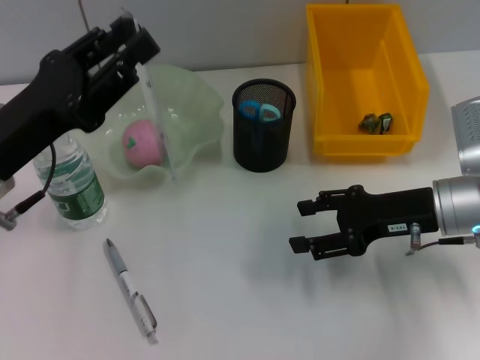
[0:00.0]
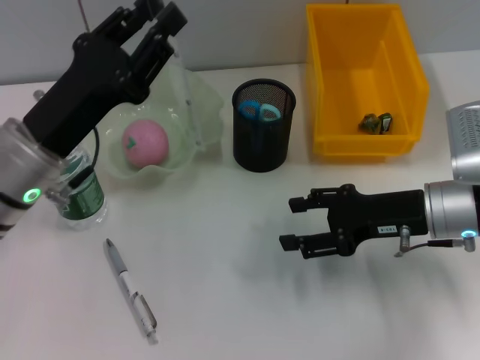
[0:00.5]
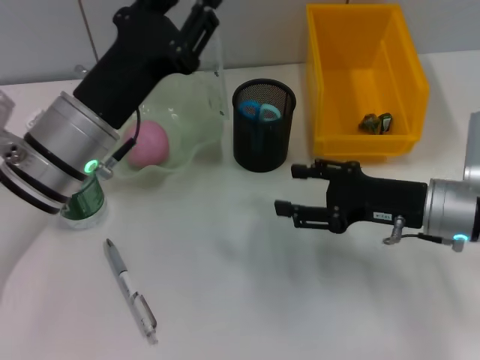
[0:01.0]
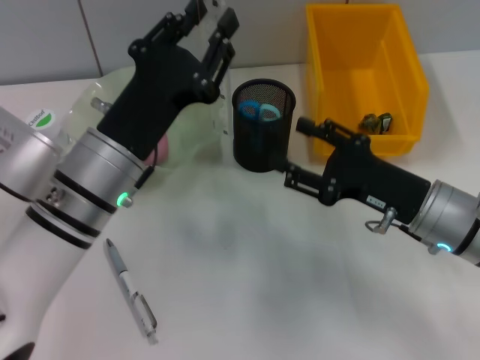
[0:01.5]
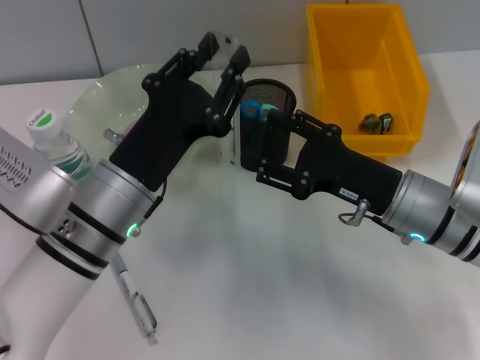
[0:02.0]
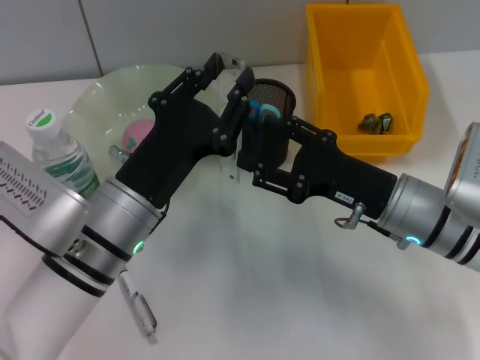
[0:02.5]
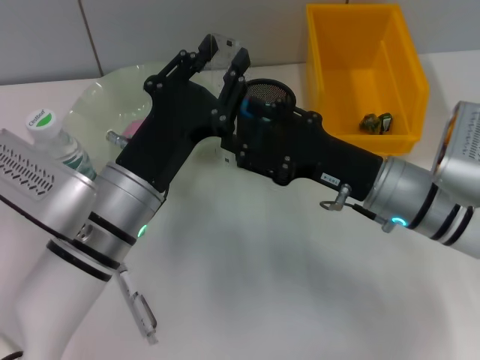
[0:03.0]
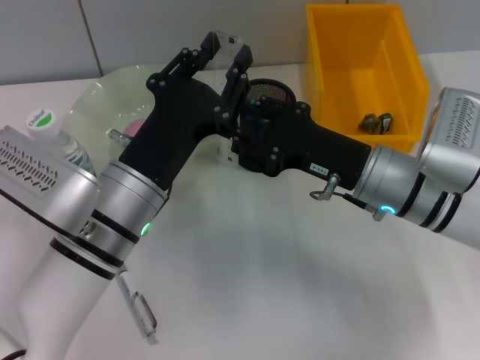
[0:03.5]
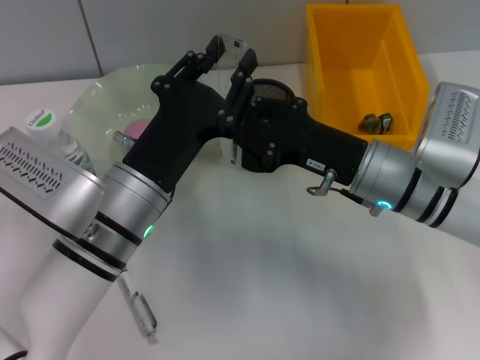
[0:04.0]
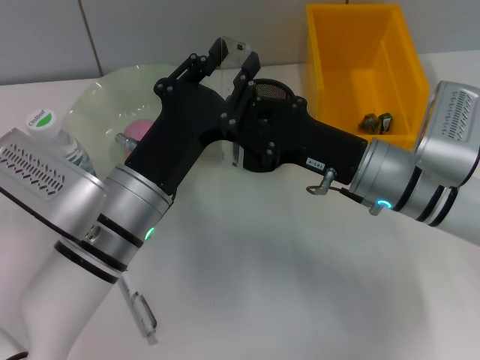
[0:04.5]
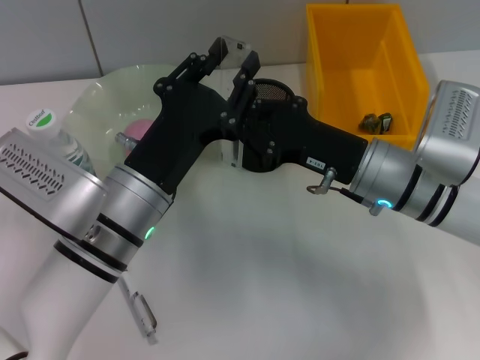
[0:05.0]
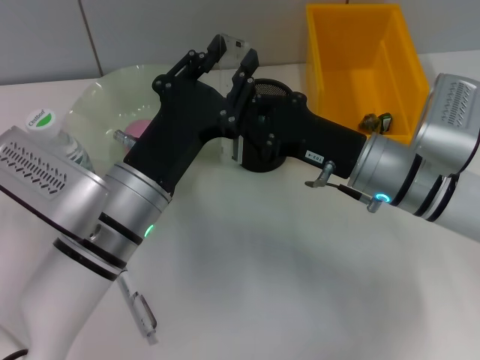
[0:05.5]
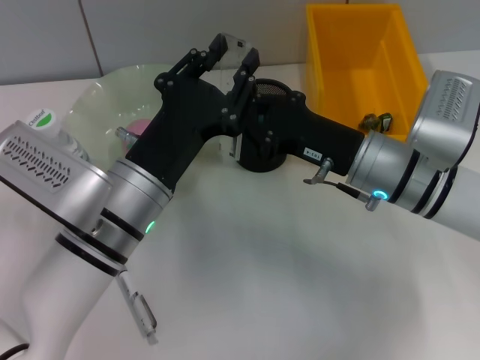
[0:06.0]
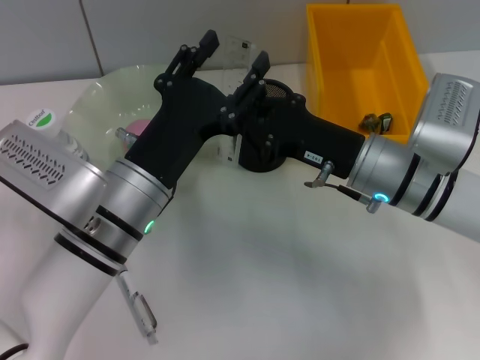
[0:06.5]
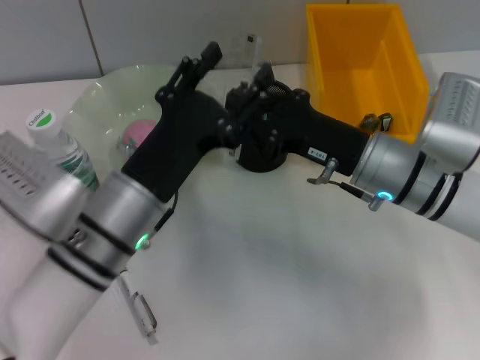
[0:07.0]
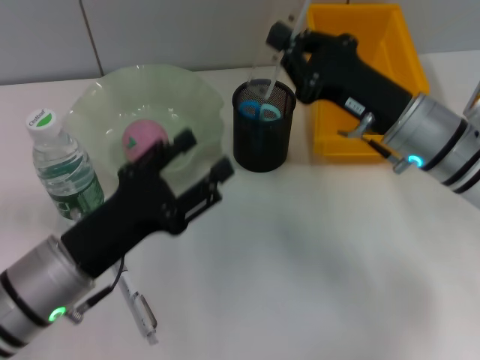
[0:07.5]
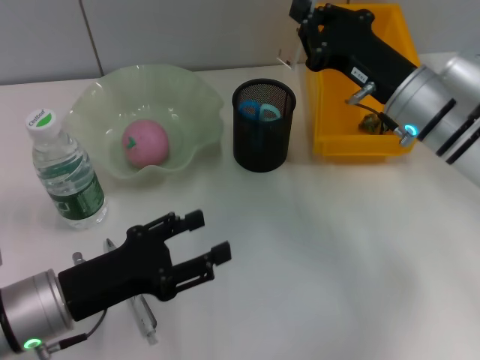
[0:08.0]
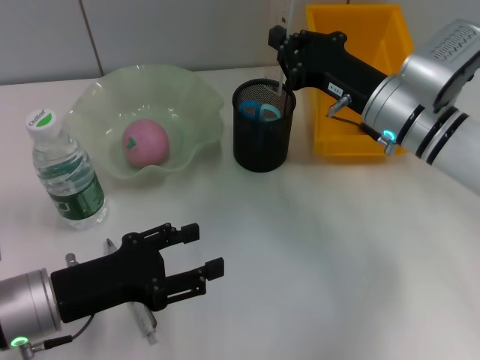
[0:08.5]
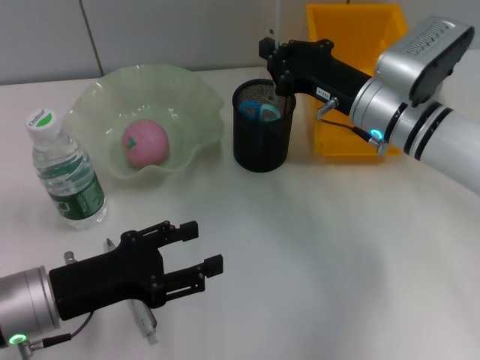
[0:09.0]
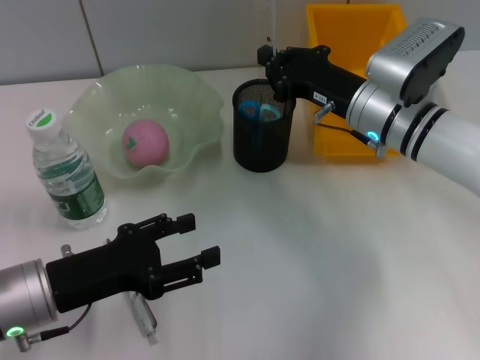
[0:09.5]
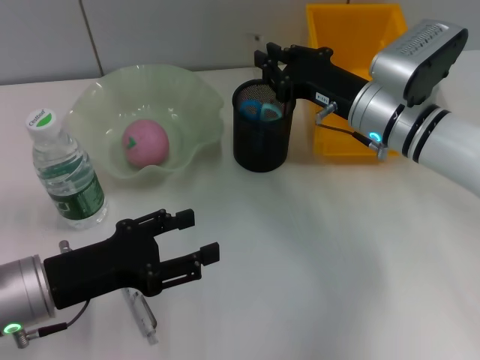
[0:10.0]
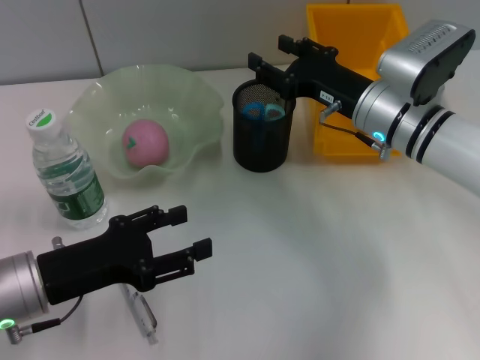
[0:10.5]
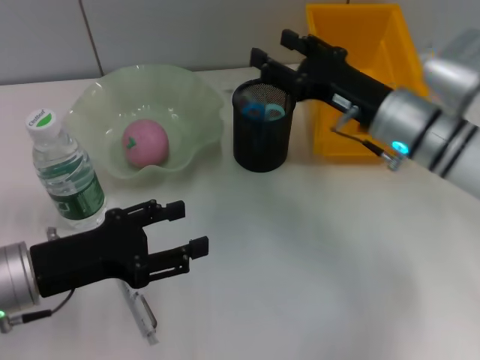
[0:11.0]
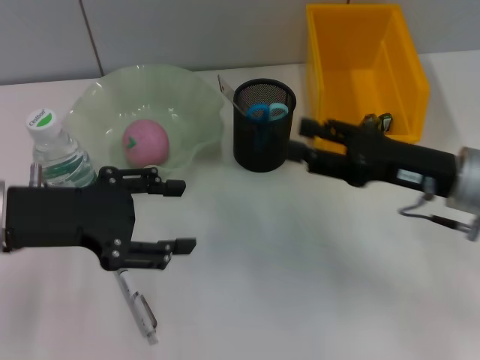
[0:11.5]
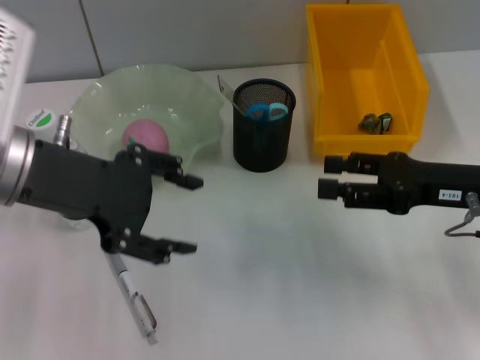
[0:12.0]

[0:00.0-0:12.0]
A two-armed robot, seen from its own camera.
Step, 0:00.0 to 0:06.0: Pass the ruler from the left hand to the right hand.
Step, 0:06.5 to 0:10.0: Place the ruler into the pen holder with the right hand.
0:00.0 to 0:02.0: The left gripper goes approximately 10 cm to the right. Meanwhile the right gripper is displaced to the left by roughly 5 cm.
0:02.0 to 0:04.0: The right gripper closes its fingers.
0:04.0 to 0:06.0: The two grippers keep their place.
0:06.0 to 0:08.0: The left gripper heads to the left, covering roughly 10 cm, and opens, while the right gripper shifts by about 5 cm.
0:08.0 to 0:10.0: There are only small adjustments of the grippers.
0:10.0 to 0:12.0: The right gripper shifts approximately 15 cm to the right and backward, and opens its fingers. The left gripper travels upward and forward by approximately 15 cm.

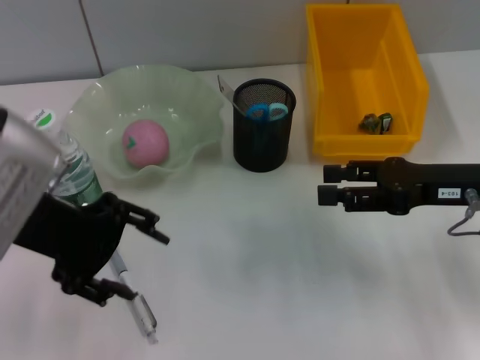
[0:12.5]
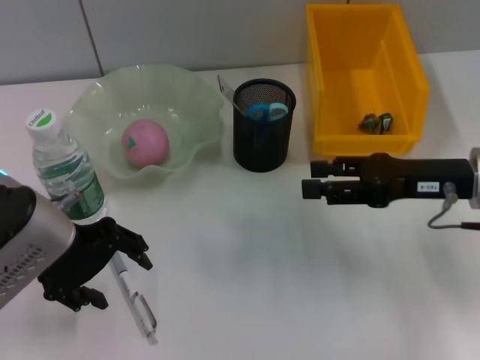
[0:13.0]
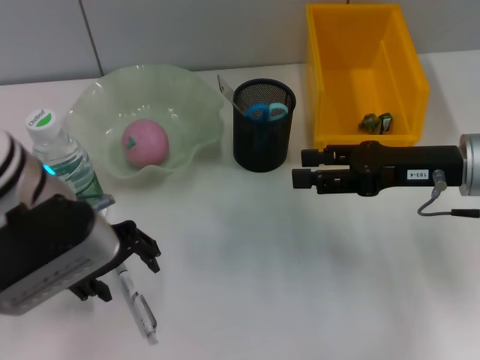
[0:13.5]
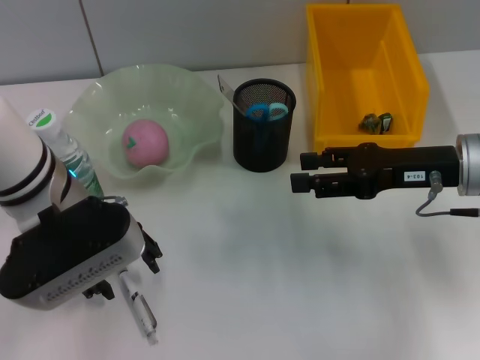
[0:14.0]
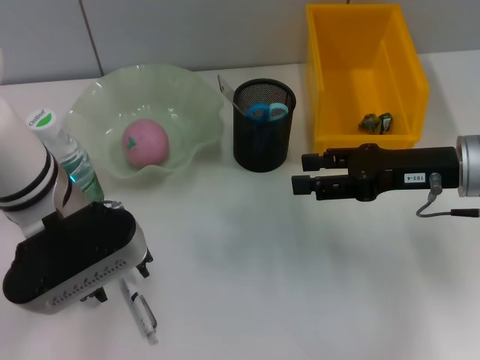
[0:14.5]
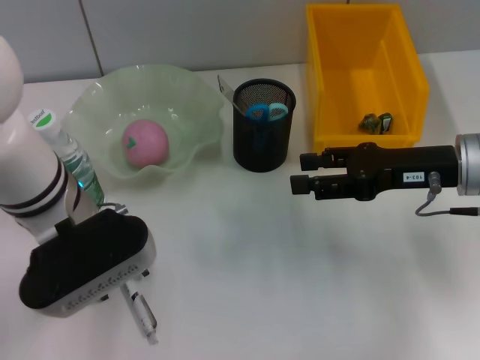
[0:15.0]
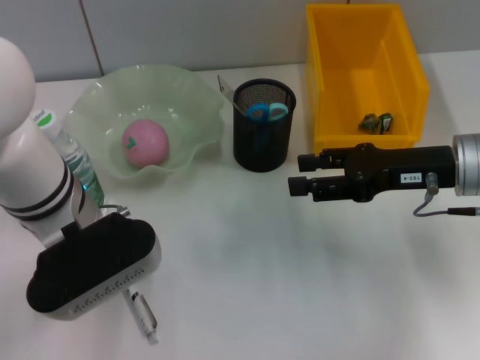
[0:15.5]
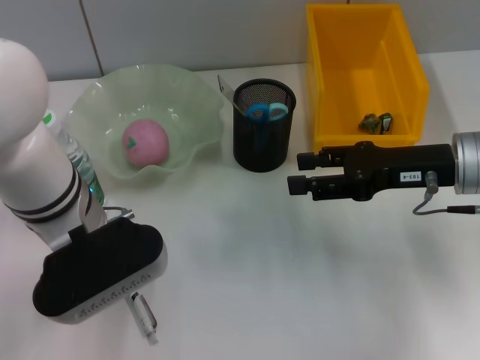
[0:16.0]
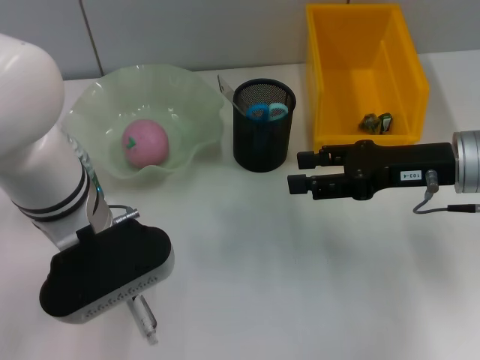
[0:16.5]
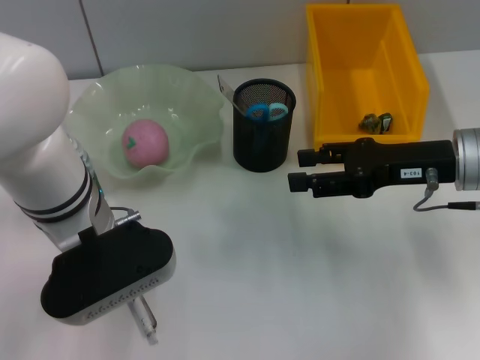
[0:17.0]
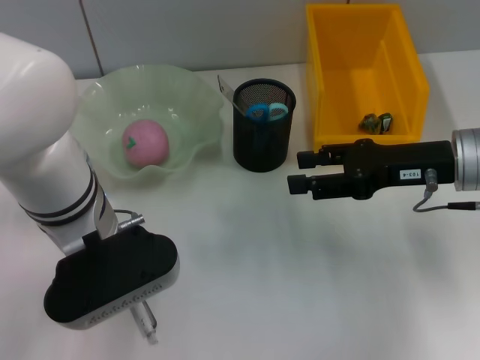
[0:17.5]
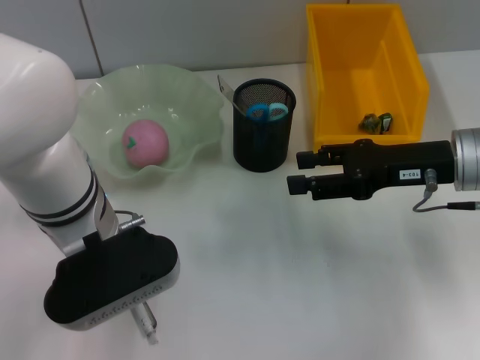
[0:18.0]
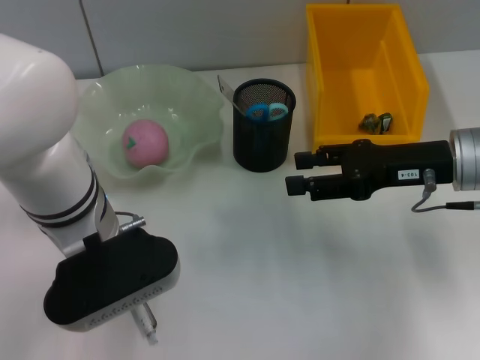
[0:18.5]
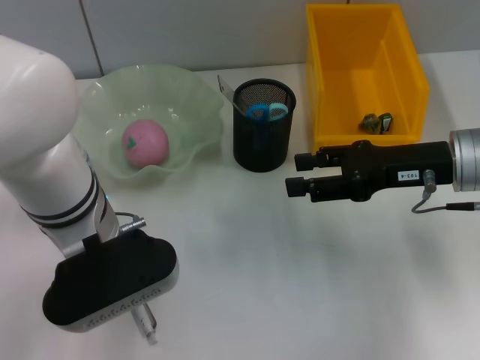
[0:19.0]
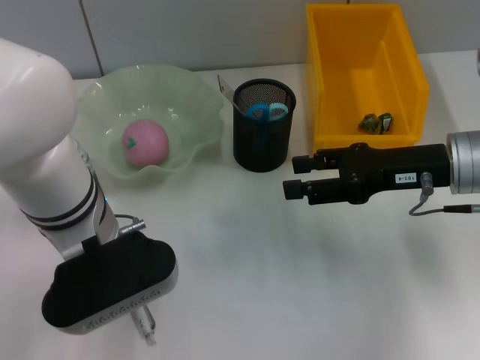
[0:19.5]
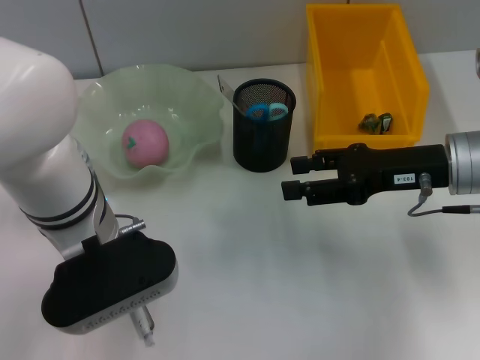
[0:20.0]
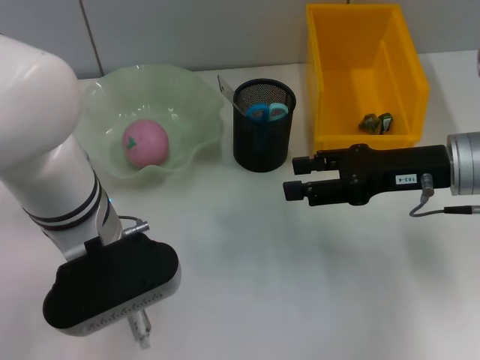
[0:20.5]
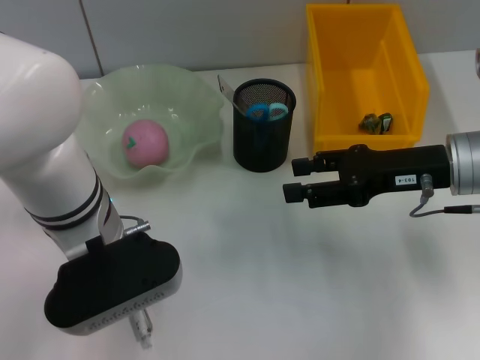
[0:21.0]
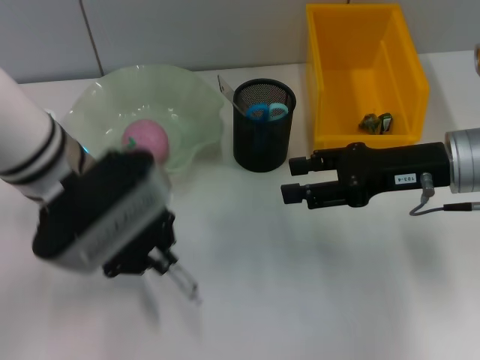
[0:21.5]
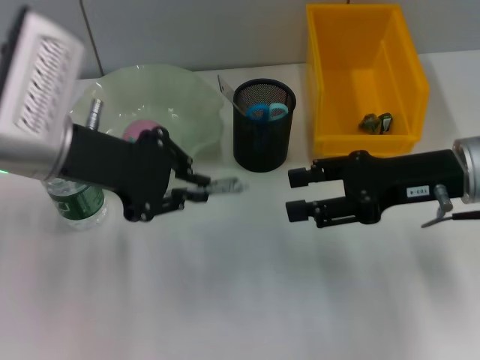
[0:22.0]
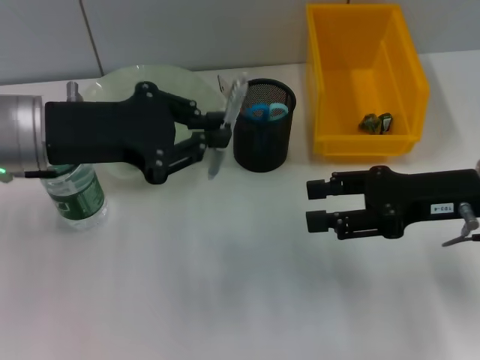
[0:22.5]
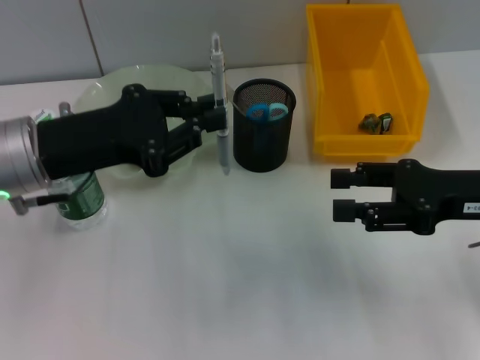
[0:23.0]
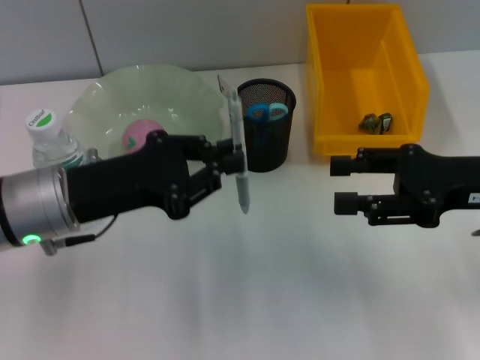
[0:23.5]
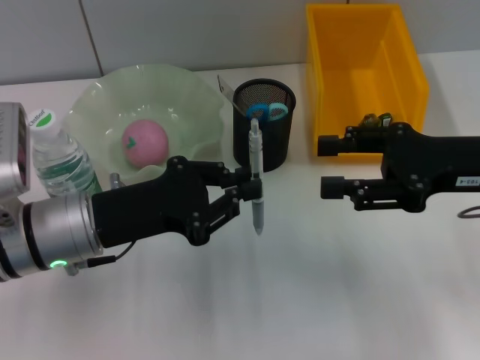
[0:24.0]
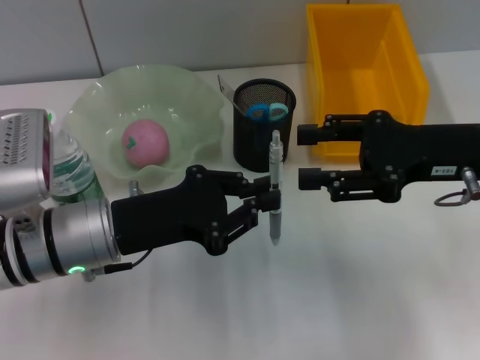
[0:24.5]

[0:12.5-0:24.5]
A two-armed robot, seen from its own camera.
Step, 0:12.5 to 0:19.5: Grab the gray spring-action pen with the left hand.
0:12.5 to 0:14.5: The left gripper travels downward by about 5 cm.
0:14.5 to 0:16.5: The grippers make only small movements.
0:16.5 to 0:20.5: Both grippers stay about where they are.
0:20.5 to 0:22.5: The left gripper travels to the left by approximately 10 cm.
0:22.5 to 0:24.5: The left gripper travels downward by approximately 10 cm.

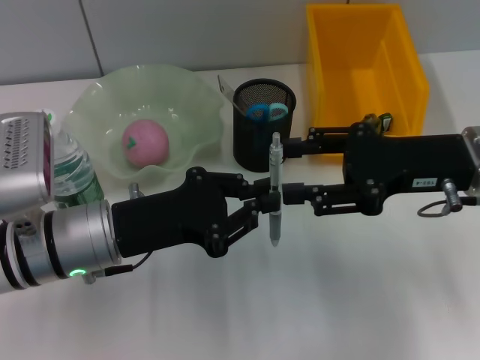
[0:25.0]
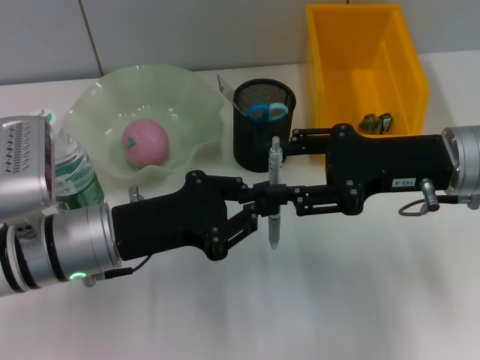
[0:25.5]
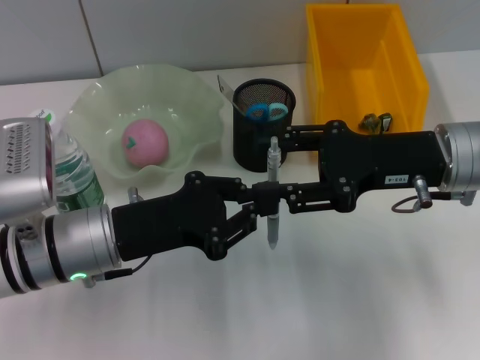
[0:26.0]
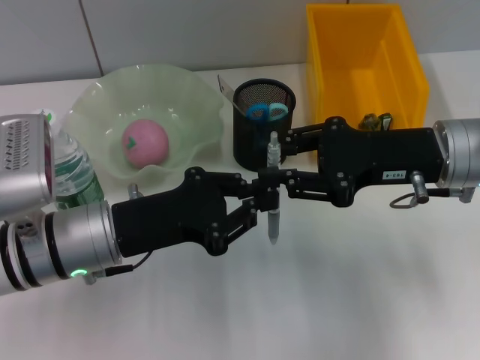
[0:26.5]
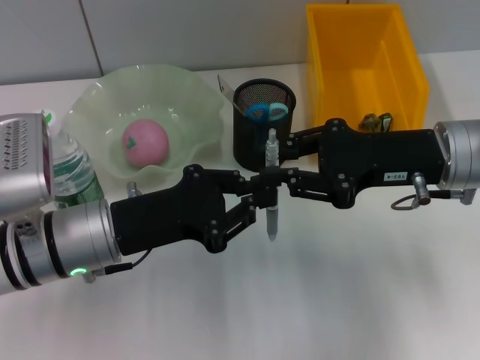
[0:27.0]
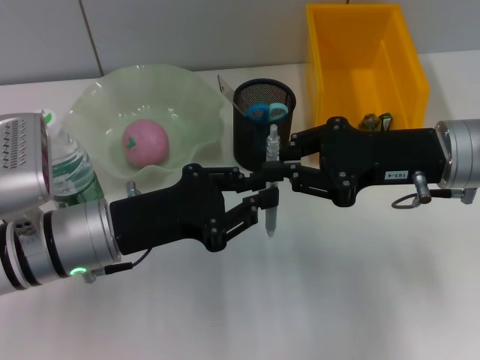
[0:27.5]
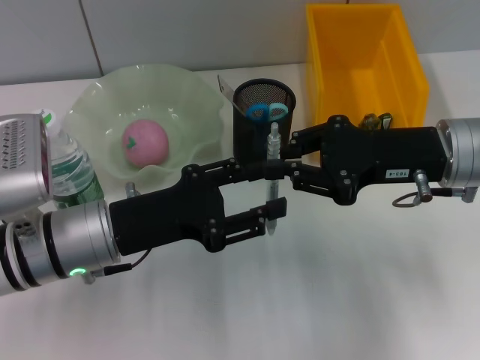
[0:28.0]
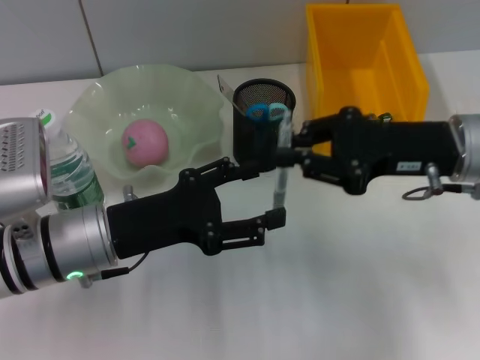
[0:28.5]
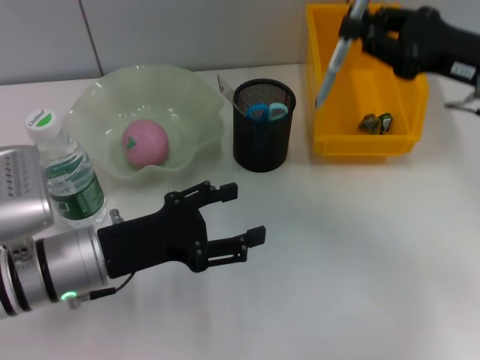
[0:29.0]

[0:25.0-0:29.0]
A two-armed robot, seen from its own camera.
Step, 0:25.0 to 0:27.5: Pass the gray spring-action pen from the left hand to the right hand.
0:25.0 to 0:27.0: The right gripper closes up.
0:27.0 to 0:29.0: The left gripper opens; the right gripper is displaced to the right by roughly 5 cm.
